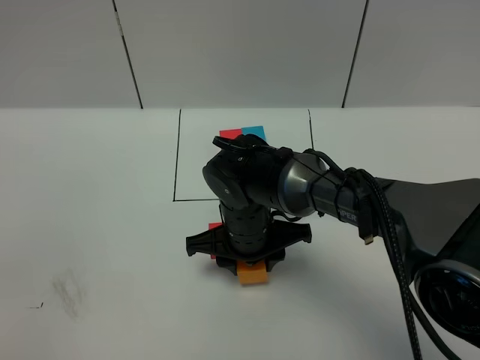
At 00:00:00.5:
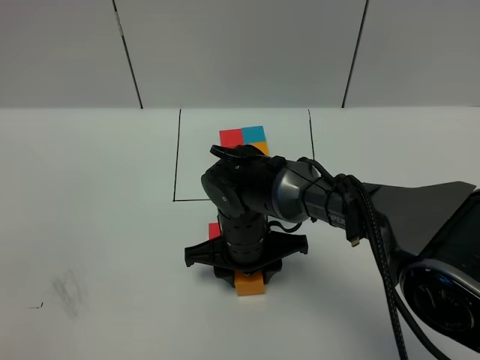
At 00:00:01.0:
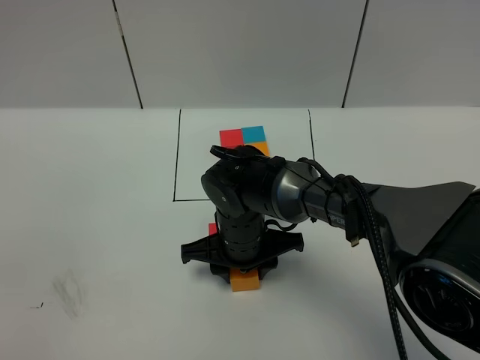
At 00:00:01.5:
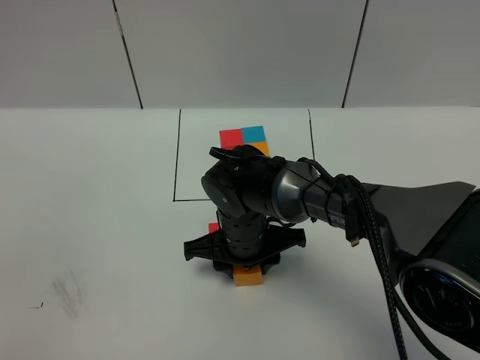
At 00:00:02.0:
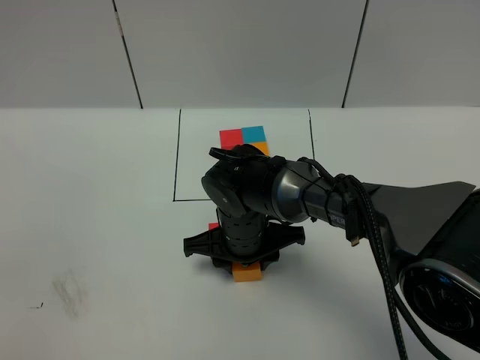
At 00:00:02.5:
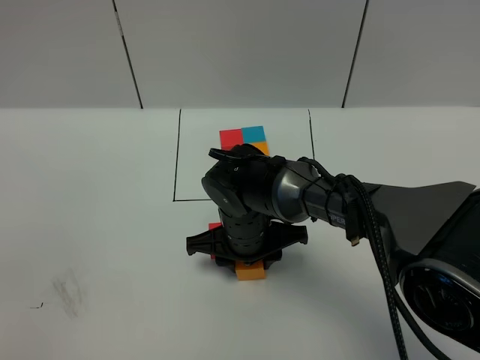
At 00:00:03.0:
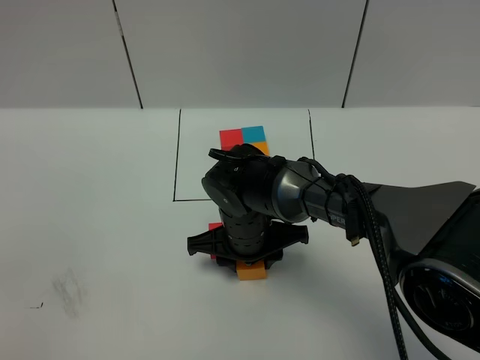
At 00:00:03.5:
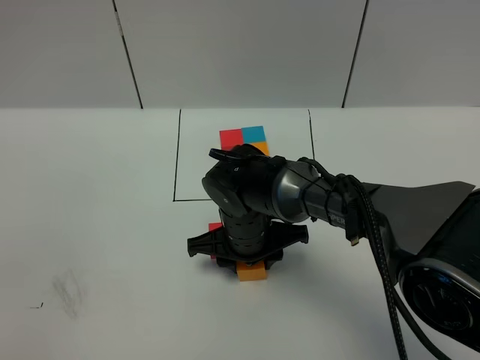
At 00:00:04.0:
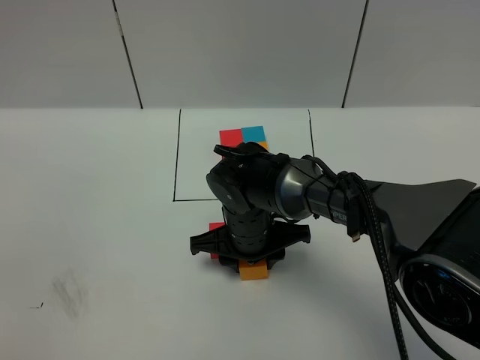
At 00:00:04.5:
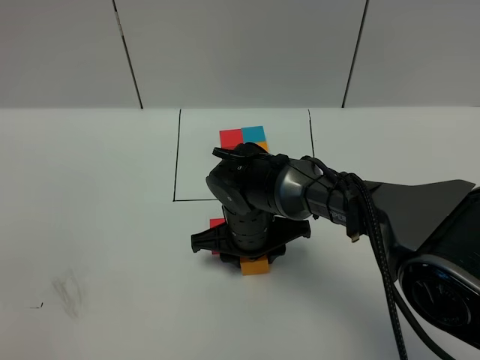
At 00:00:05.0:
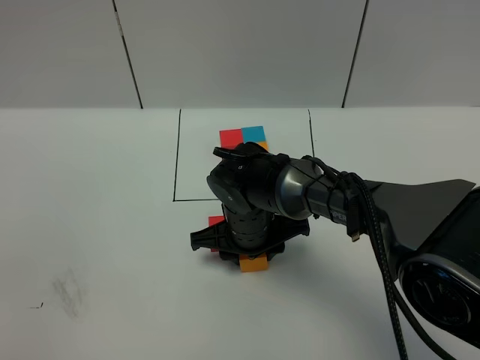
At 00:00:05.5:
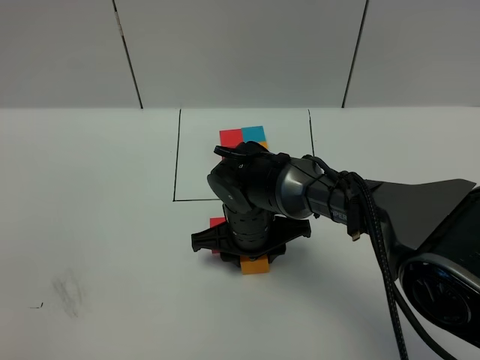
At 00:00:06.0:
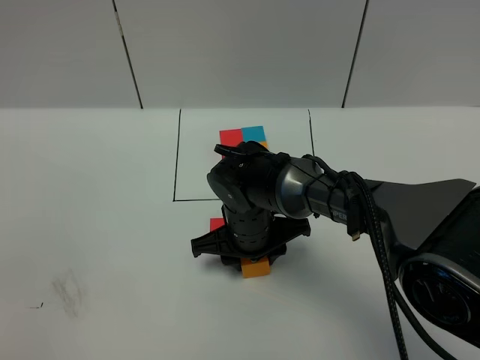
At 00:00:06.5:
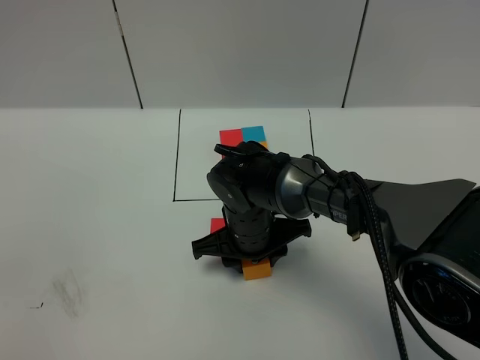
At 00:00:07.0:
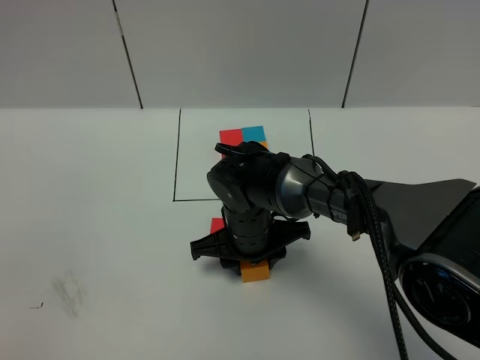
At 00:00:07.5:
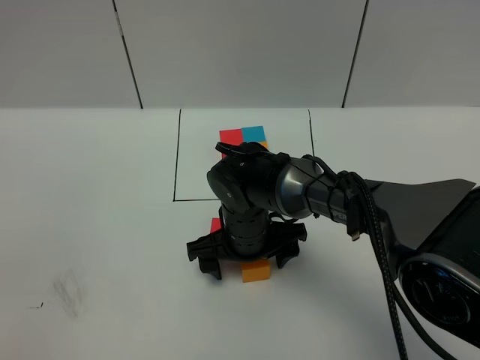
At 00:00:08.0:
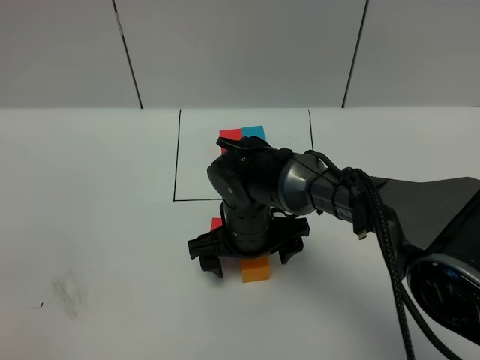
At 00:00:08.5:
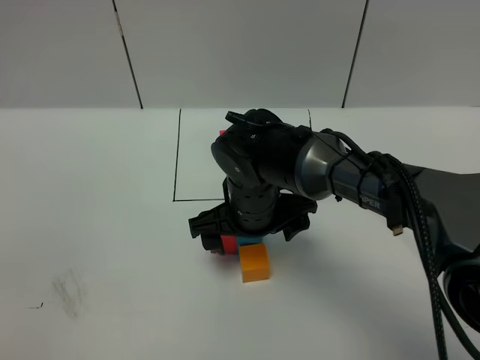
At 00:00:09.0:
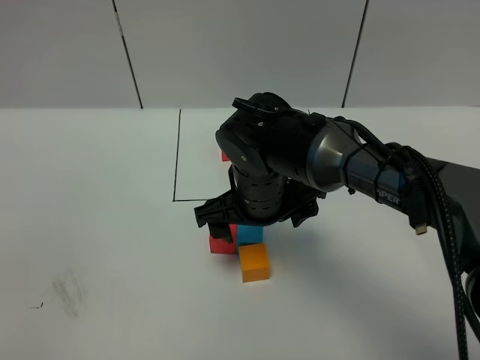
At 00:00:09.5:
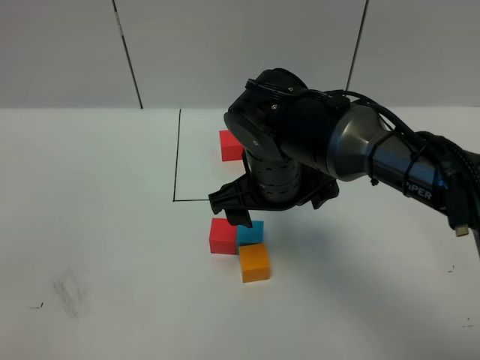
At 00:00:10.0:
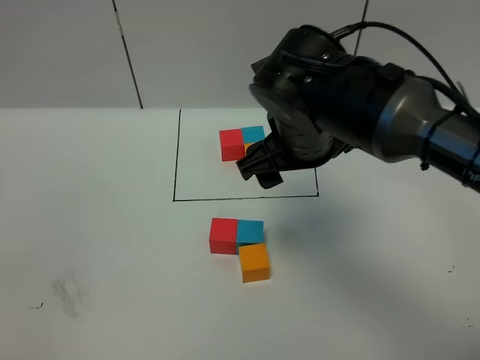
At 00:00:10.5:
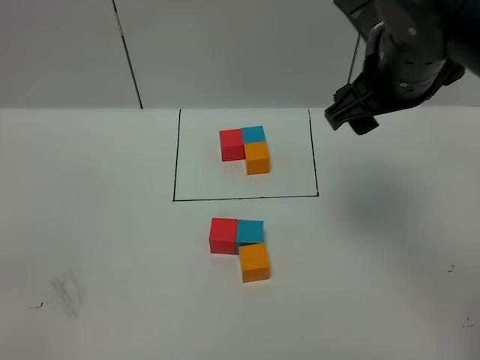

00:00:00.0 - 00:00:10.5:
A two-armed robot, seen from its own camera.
Task of the whole recording: According to the building block template in front, assemble the scattered blocks together.
Step, 00:00:00.0 - 00:00:07.5: Put the orange cube in the front of the blue cube.
00:00:00.0 - 00:00:02.0: The grippers make only small movements.
00:00:02.0 - 00:00:04.0: The two grippers keep their place.
00:00:04.0 - 00:00:06.5: The grippers stay close to where they were, moving slightly.
00:00:06.5 - 00:00:08.5: The right gripper is displaced upward by some 5 cm, and opens.
00:00:08.5 - 00:00:10.5: The right gripper heads upward and to the right, covering roughly 25 cm.

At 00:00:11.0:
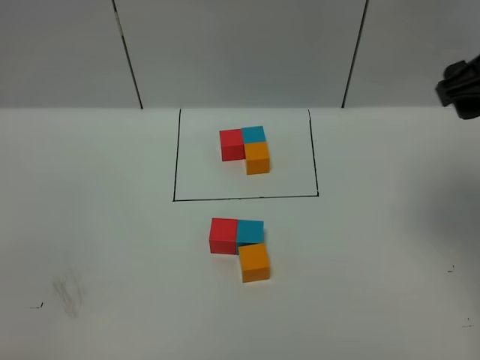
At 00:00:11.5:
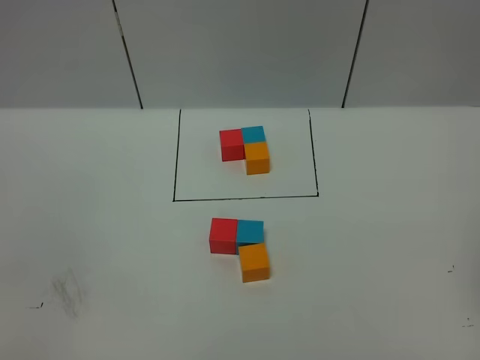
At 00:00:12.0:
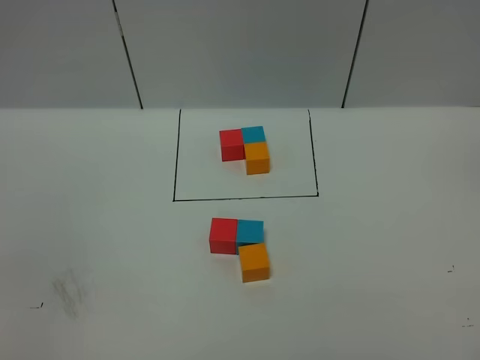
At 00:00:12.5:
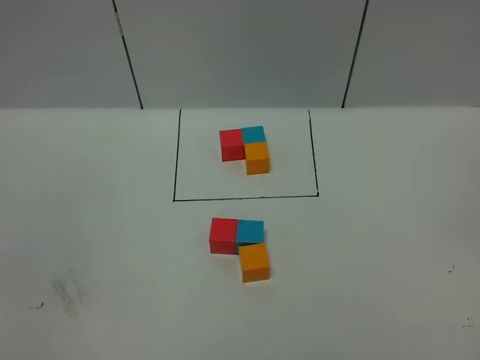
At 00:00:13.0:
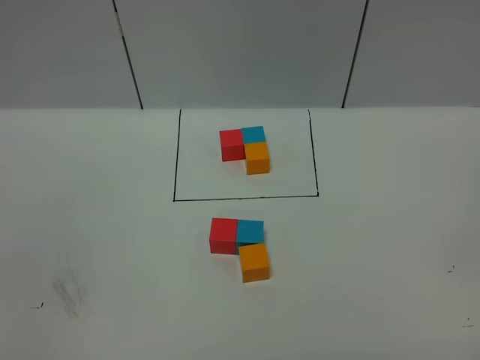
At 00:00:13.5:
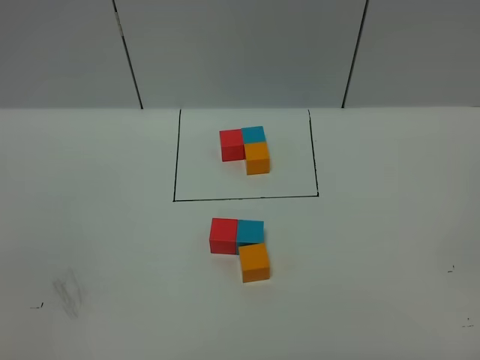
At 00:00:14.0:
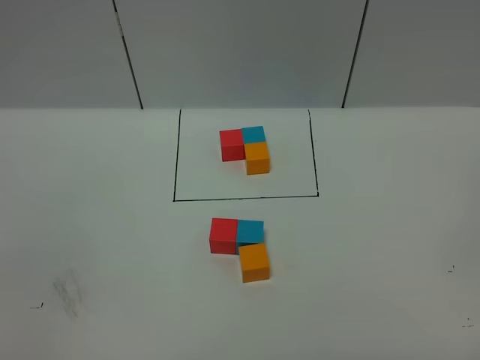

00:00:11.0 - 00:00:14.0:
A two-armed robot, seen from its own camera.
Task of the whole recording: According to the building block template in front, assemble the scattered blocks together.
00:00:11.0 - 00:00:12.5: The right gripper is displaced backward by approximately 30 cm.

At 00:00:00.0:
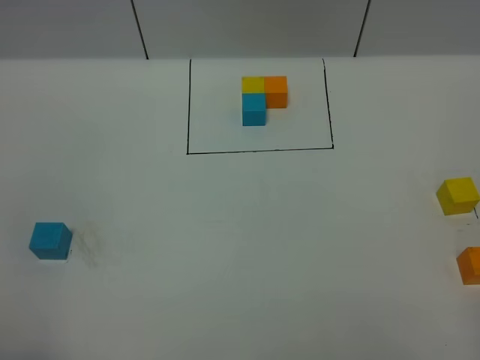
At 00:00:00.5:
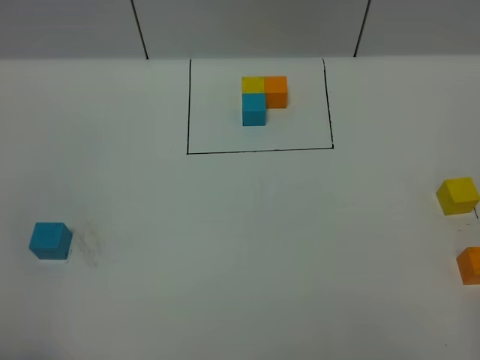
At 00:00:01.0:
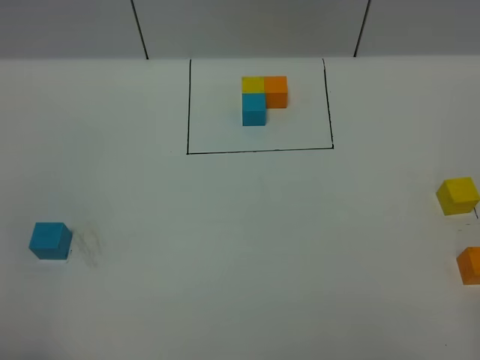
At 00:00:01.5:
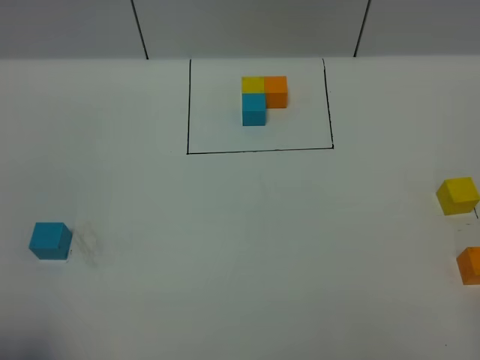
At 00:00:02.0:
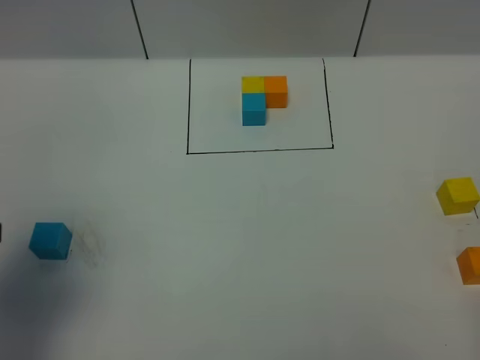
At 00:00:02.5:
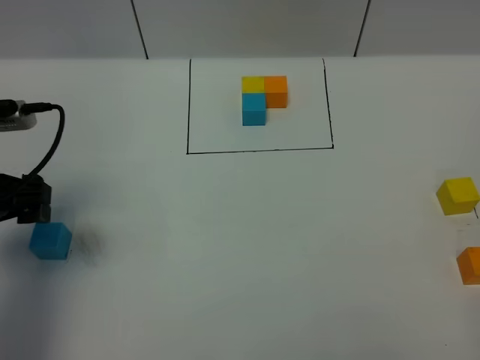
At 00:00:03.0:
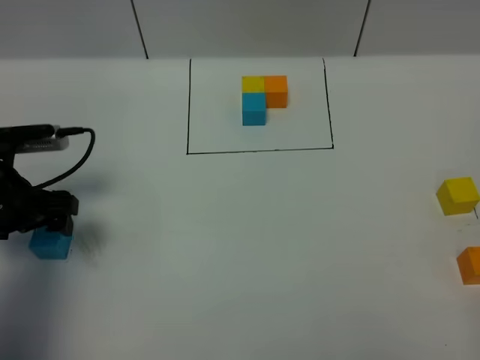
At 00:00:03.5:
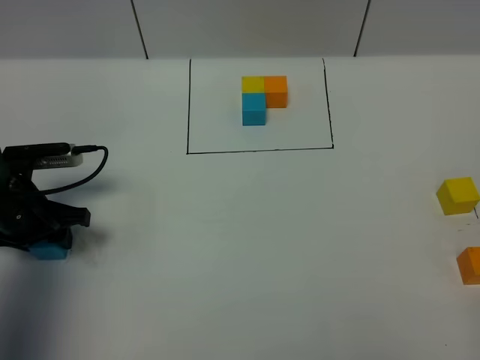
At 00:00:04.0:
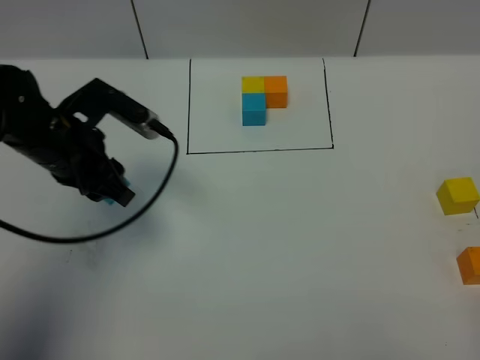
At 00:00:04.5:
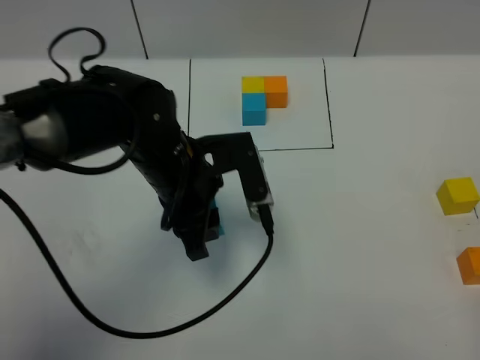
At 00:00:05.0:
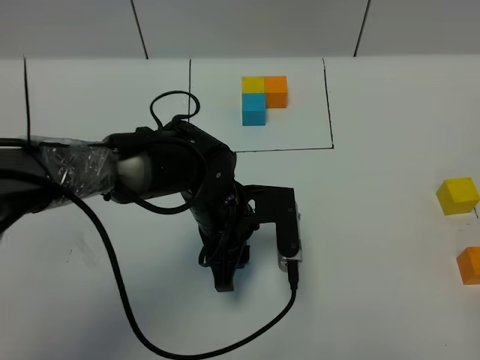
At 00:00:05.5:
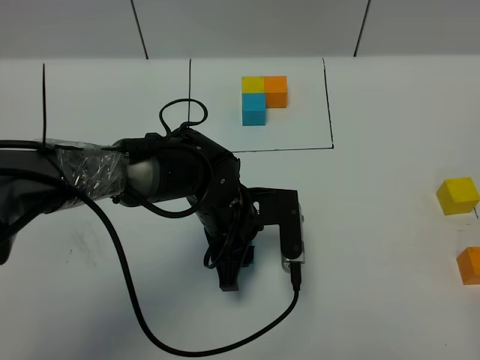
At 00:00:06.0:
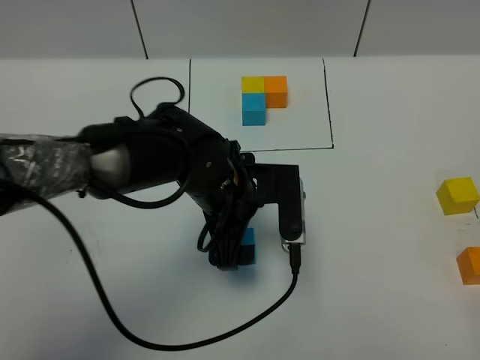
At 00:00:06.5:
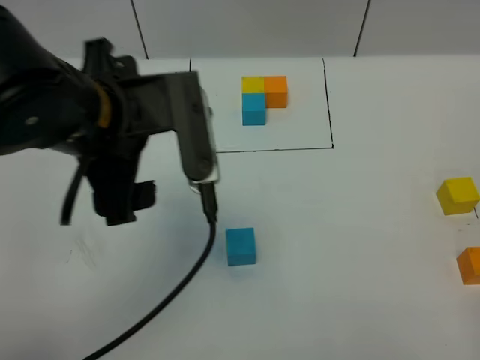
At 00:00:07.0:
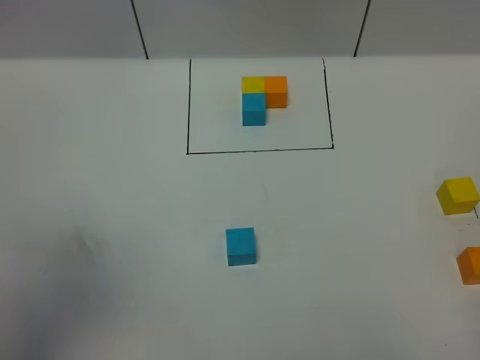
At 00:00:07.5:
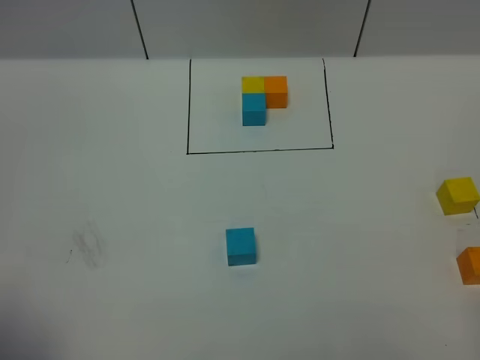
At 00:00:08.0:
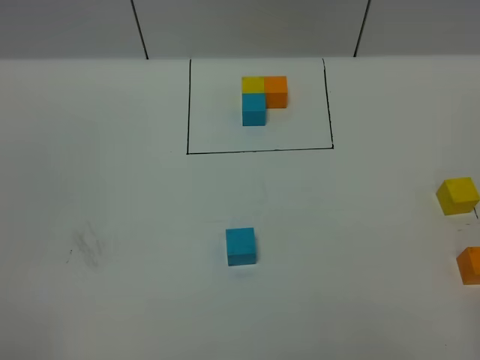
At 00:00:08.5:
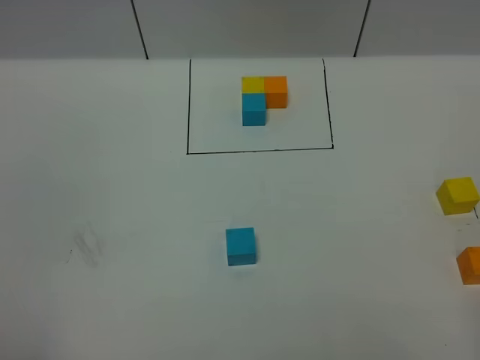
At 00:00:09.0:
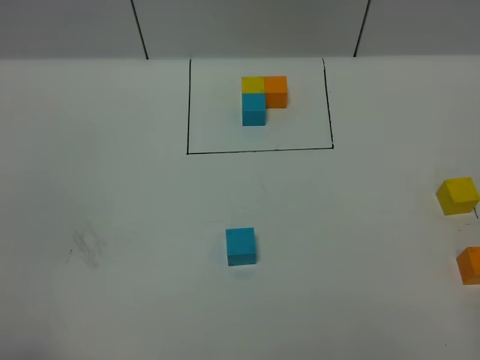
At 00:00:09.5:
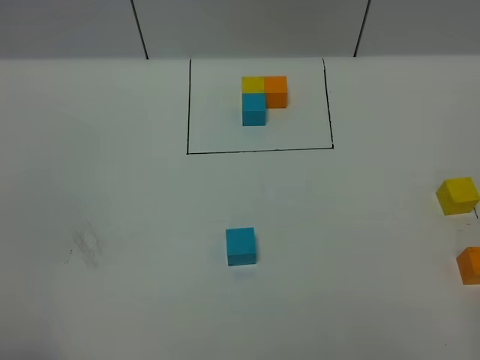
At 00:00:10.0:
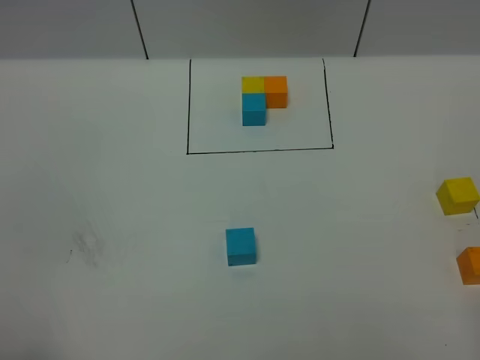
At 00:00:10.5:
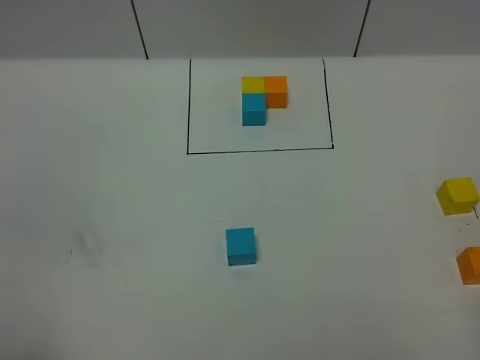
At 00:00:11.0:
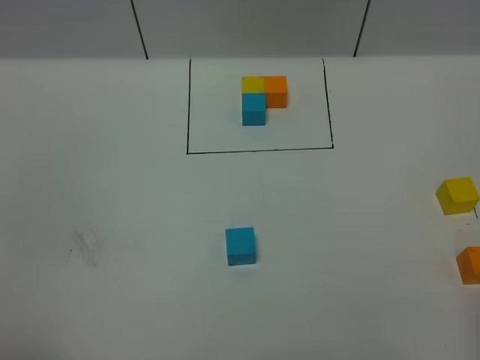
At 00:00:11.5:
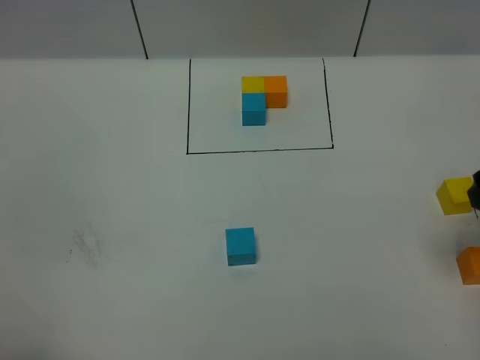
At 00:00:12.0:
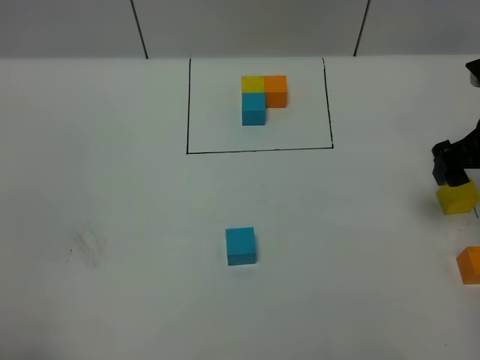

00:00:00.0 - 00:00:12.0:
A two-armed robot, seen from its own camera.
Task of the whole recording: According to the building block template in front, assemble the scattered blocks together.
Step, 00:00:02.0 - 00:00:06.0: Put the blue cube in the center of the table.
00:00:00.0 - 00:00:02.0: The left gripper heads forward, covering roughly 15 cm.
00:00:02.0 - 00:00:04.0: The left gripper travels forward, downward and to the right by roughly 20 cm, and closes.
00:00:04.0 - 00:00:06.0: The left gripper travels to the right by roughly 15 cm, and opens up.
00:00:06.0 - 00:00:08.0: The left gripper shifts roughly 50 cm backward, to the left and upward.
00:00:10.0 - 00:00:12.0: The right gripper shifts about 30 cm forward, and opens its fingers.
